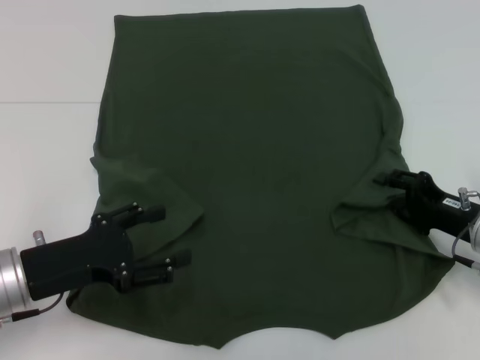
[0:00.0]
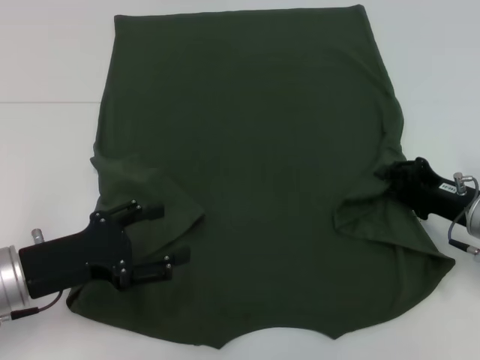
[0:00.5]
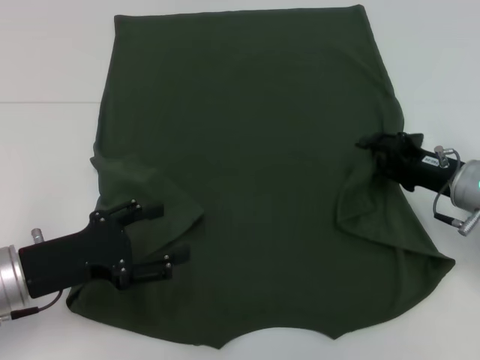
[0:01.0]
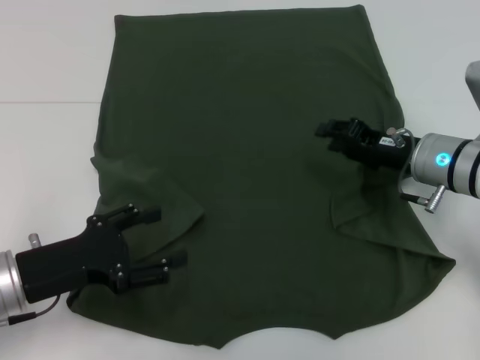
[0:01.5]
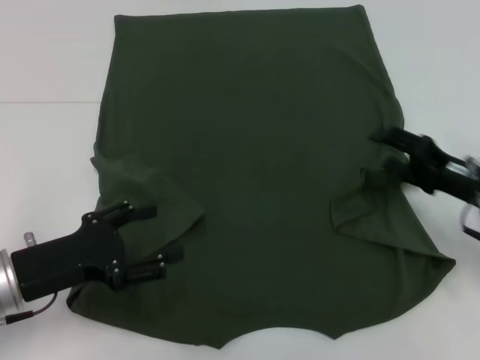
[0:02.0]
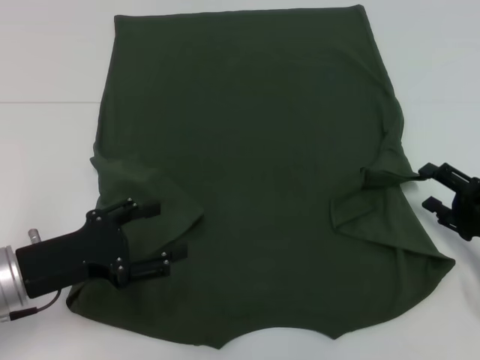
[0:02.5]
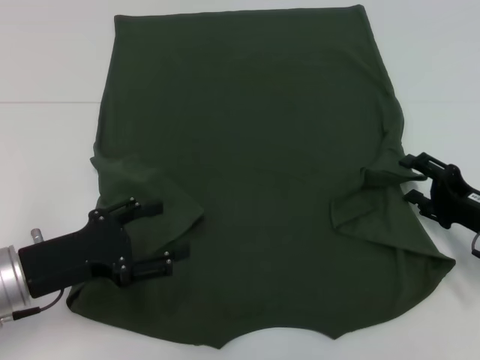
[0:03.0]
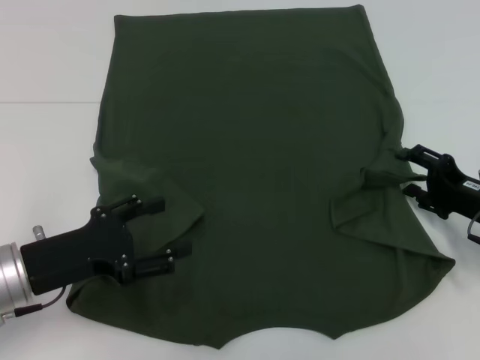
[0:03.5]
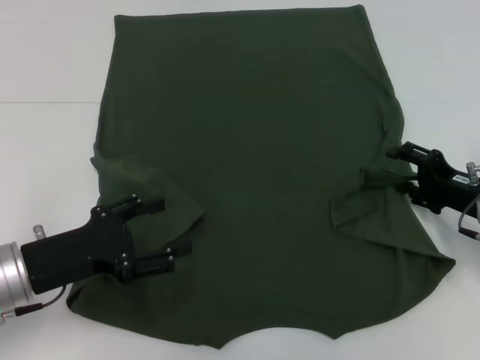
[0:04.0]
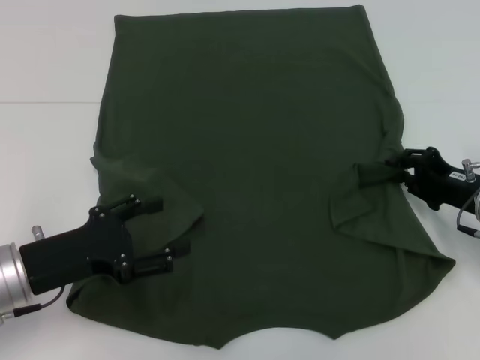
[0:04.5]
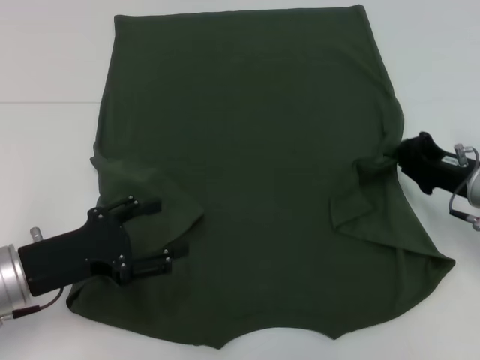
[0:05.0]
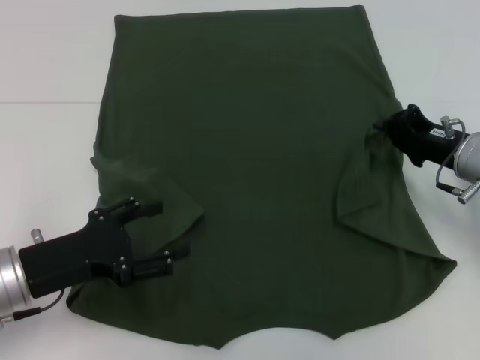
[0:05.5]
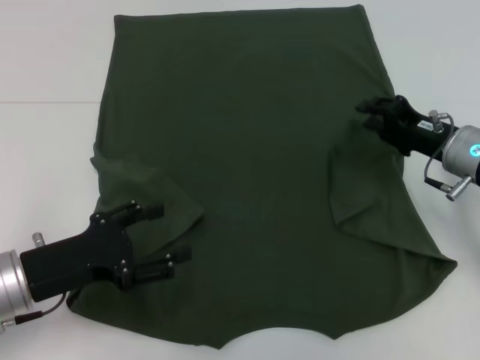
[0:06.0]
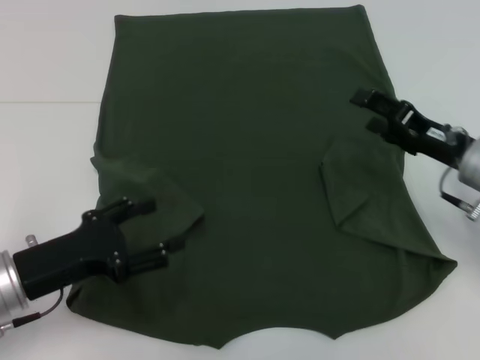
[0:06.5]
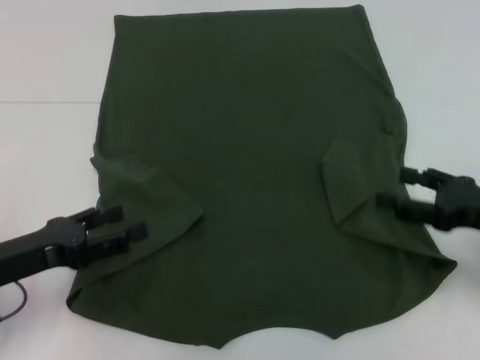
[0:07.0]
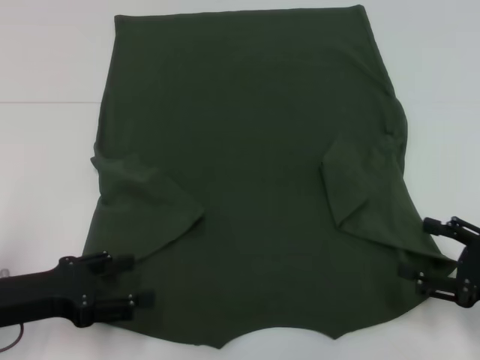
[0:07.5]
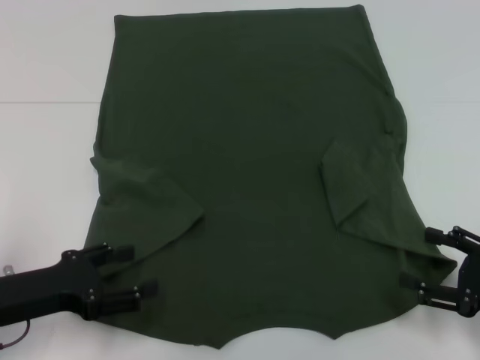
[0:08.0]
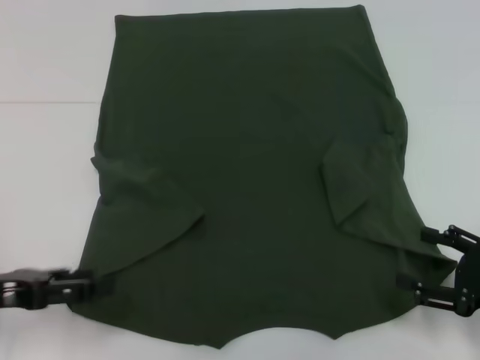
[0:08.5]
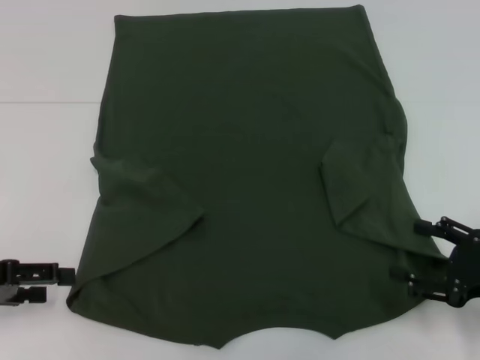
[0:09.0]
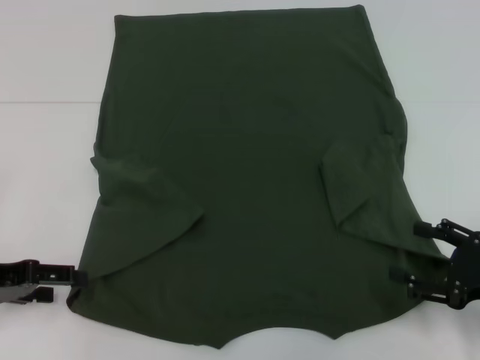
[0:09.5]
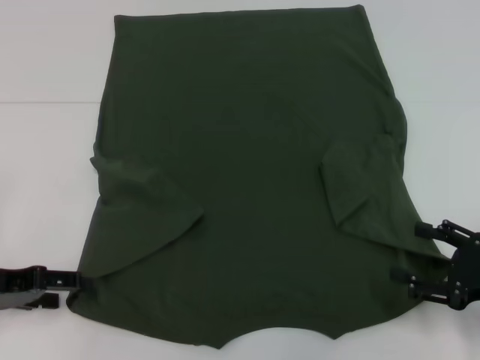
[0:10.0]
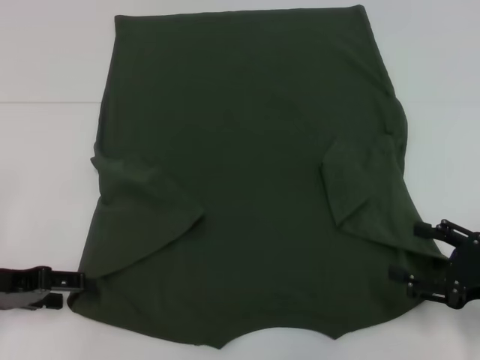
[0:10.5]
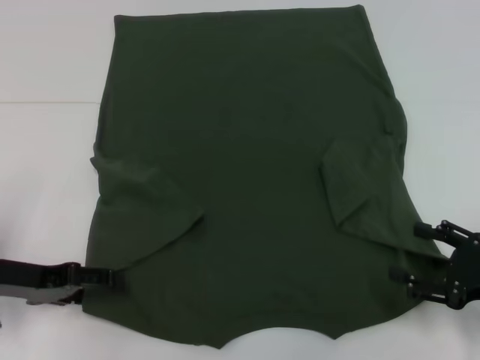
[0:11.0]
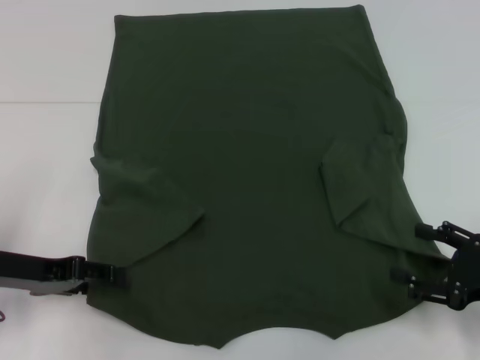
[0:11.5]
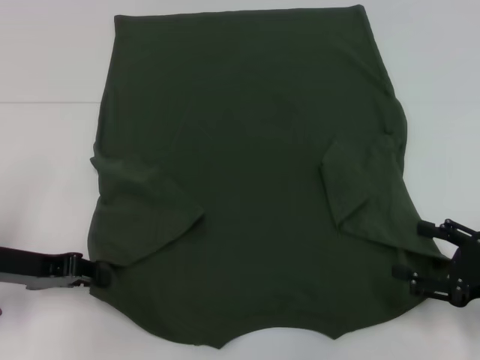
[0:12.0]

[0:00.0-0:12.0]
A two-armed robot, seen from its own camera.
Step, 0.0 to 6.5 s: Fold the bottom right sleeve with your right hand.
0.0 to 2.0 s: The right gripper closes and opens again.
4.0 to 6.0 s: The right gripper moves about 5 cm, and closes its fingers.
6.0 to 8.0 s: The right gripper is displaced backward and to the right by approximately 20 cm, and opens.
8.0 to 10.0 s: The left gripper ends up approximately 5 cm from where it was.
10.0 to 12.0 s: The left gripper closes.

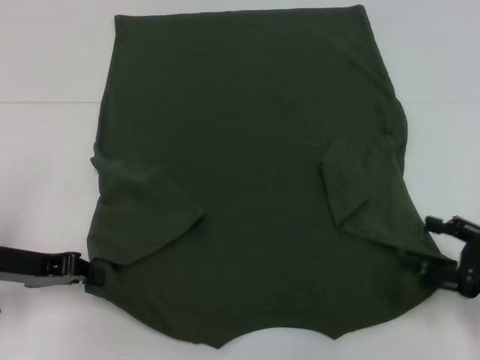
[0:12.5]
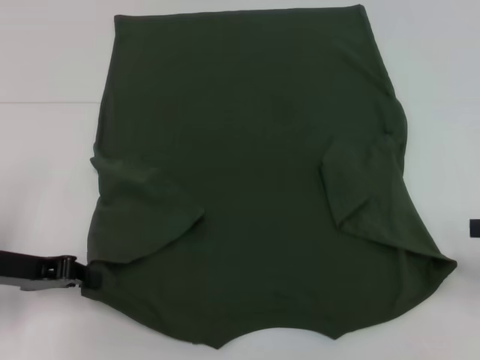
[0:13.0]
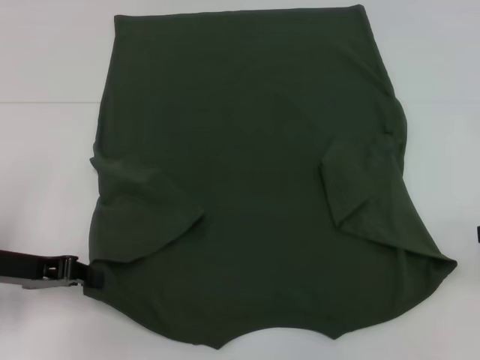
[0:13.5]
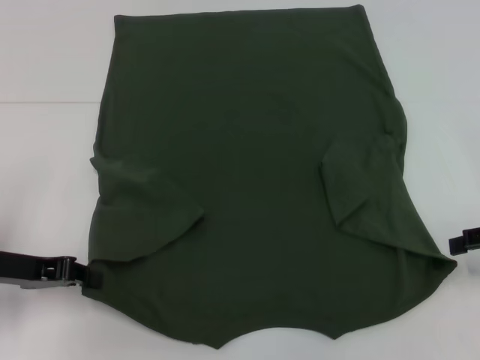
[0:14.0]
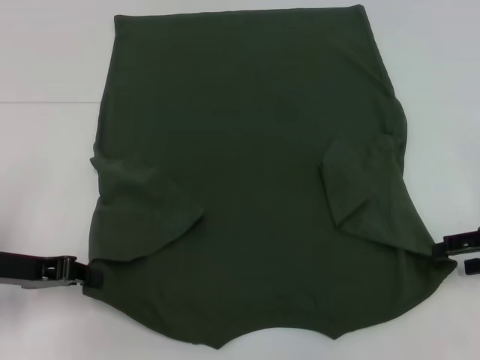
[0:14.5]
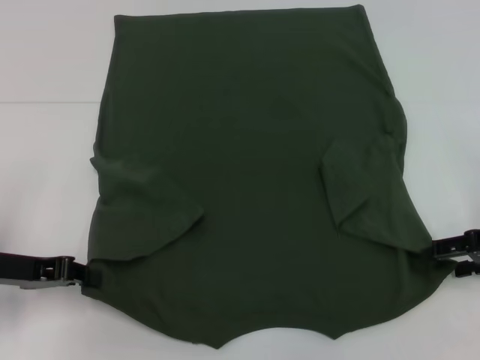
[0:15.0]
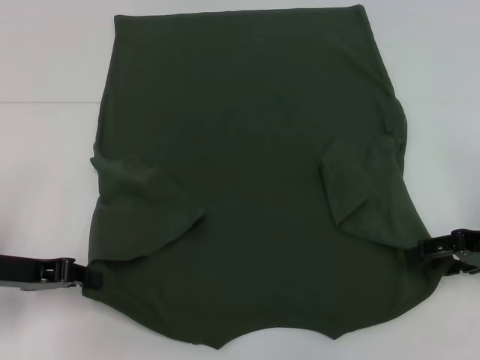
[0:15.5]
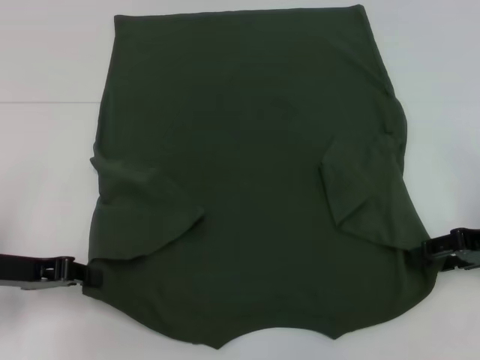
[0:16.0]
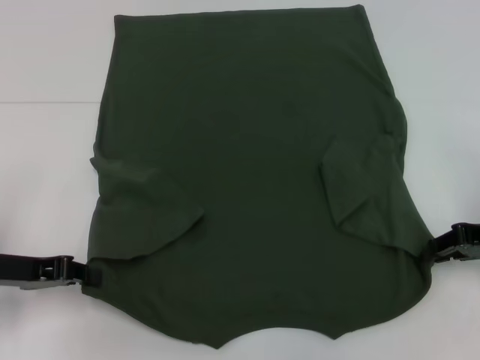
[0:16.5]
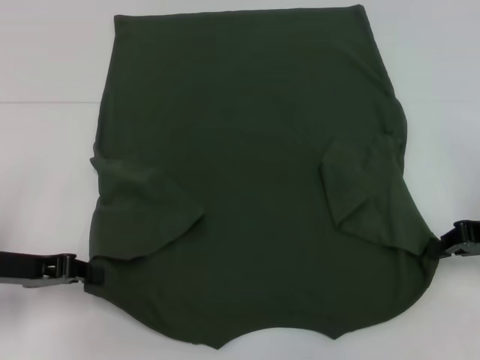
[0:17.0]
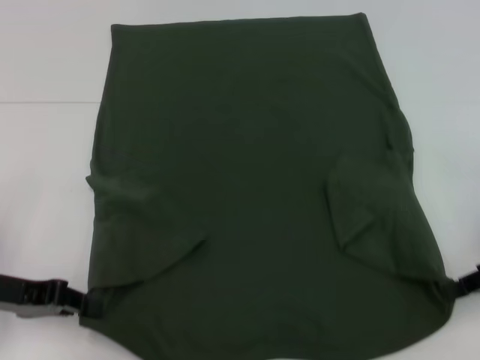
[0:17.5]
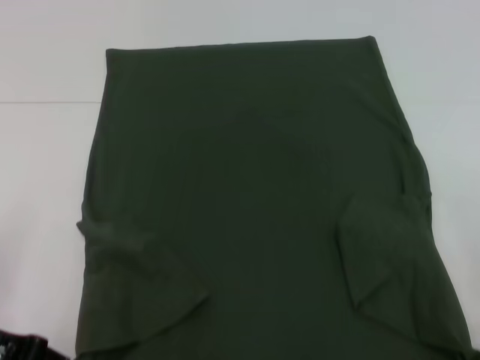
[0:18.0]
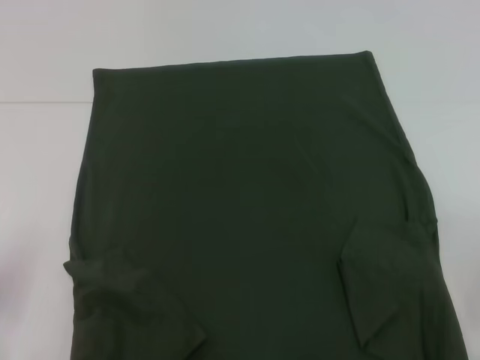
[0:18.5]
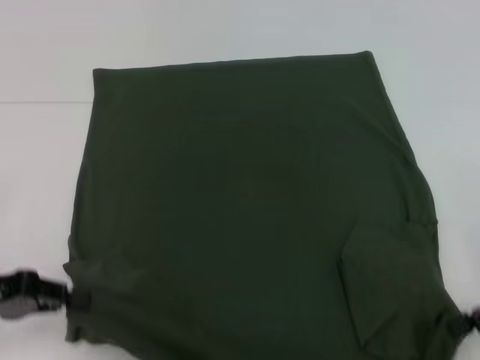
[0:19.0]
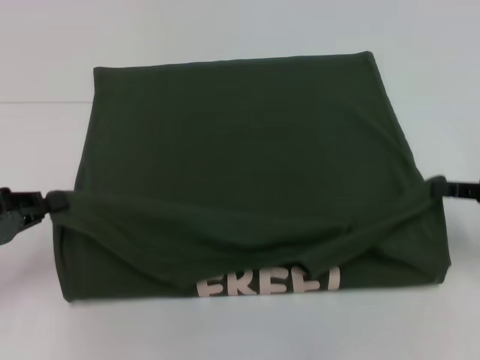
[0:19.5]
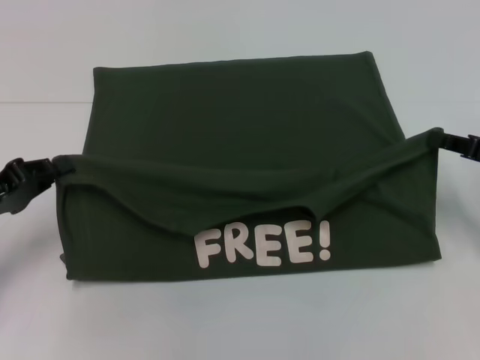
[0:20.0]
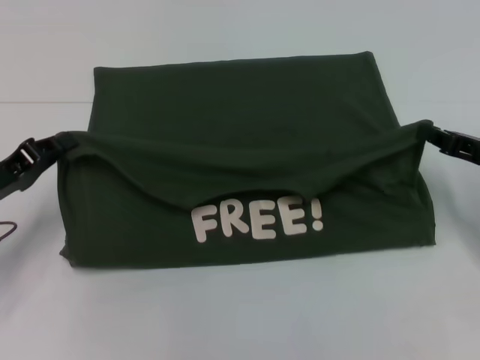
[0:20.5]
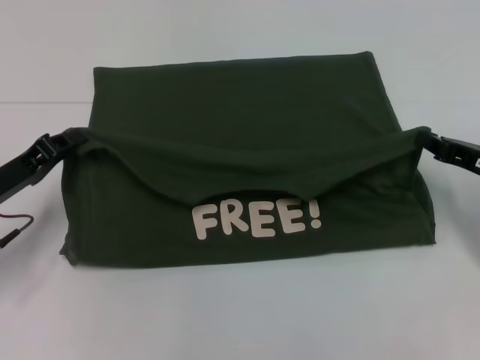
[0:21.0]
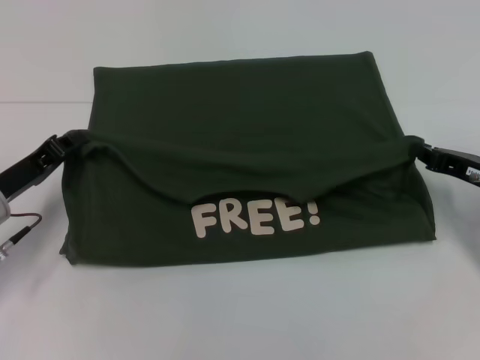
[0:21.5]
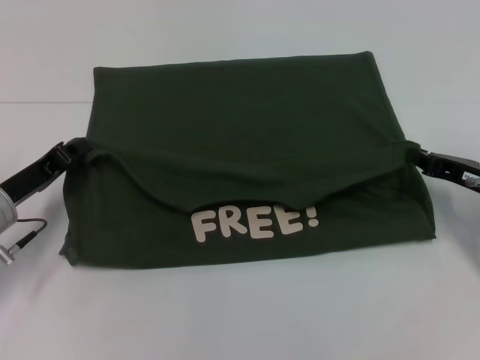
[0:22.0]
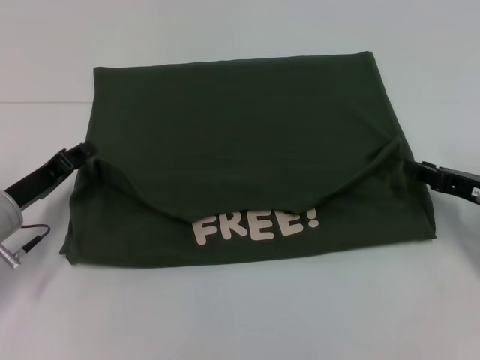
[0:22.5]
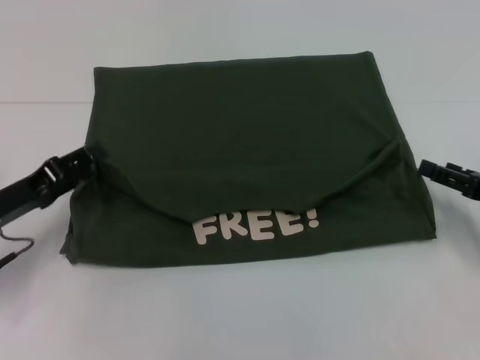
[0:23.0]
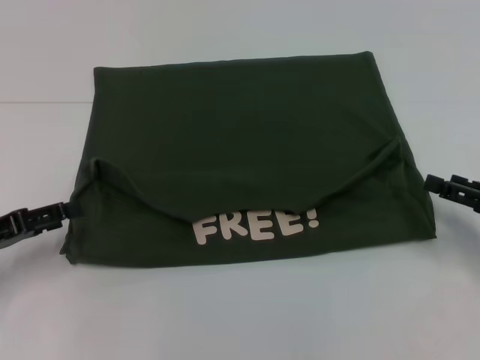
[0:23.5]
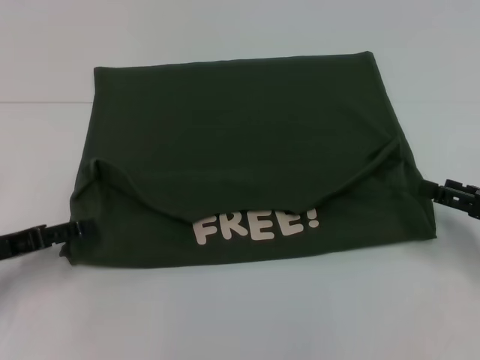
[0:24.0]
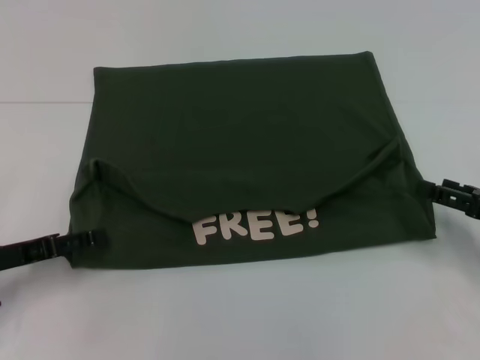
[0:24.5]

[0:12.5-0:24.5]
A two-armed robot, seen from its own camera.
Step, 12.5 to 16.5 s: Grab the bottom right corner with your right hand.
Step, 17.0 to 22.5 s: Fold the clothes with your left hand.
Step, 17.0 to 22.5 s: Fold the clothes with your right hand.
12.5 to 14.5 s: The right gripper goes about 10 cm forward and upward.
14.5 to 16.5 s: The right gripper closes up.
16.5 to 18.5 s: Both grippers move backward, approximately 5 cm. The right gripper closes its fingers.
18.5 to 20.5 s: Both grippers travel together forward, some 10 cm.
20.5 to 22.5 s: The grippers stay close to where they were, moving slightly.
22.5 to 24.5 s: The right gripper shifts by about 5 cm, and opens. The left gripper shifts by about 5 cm, and opens.

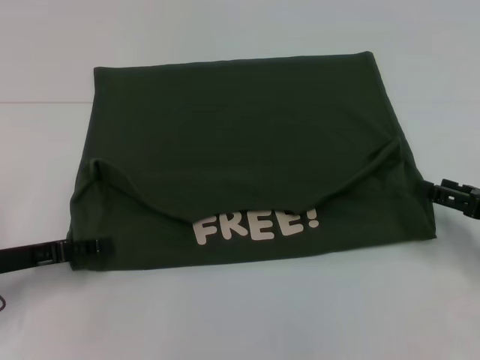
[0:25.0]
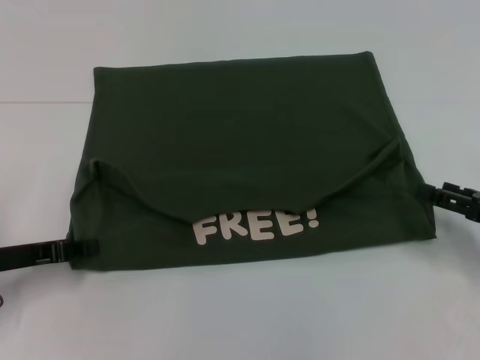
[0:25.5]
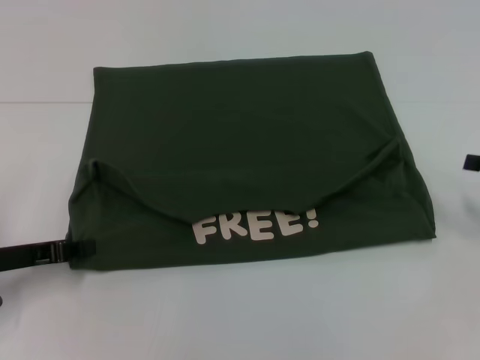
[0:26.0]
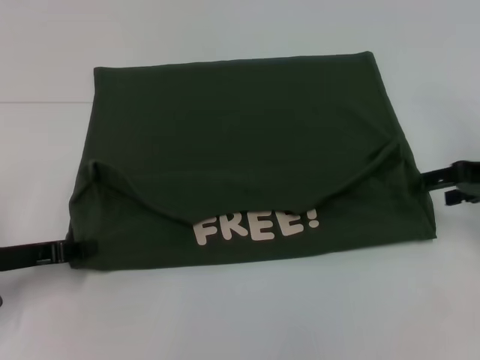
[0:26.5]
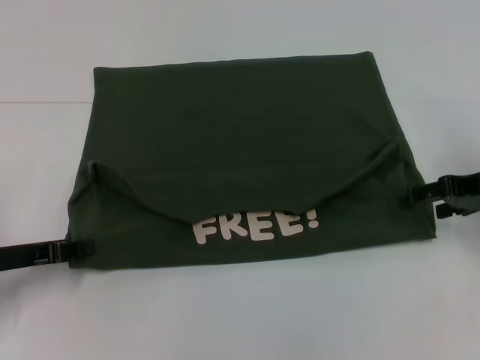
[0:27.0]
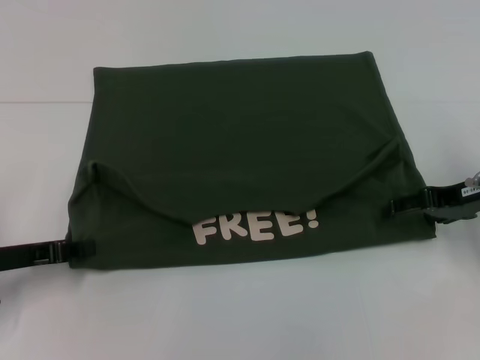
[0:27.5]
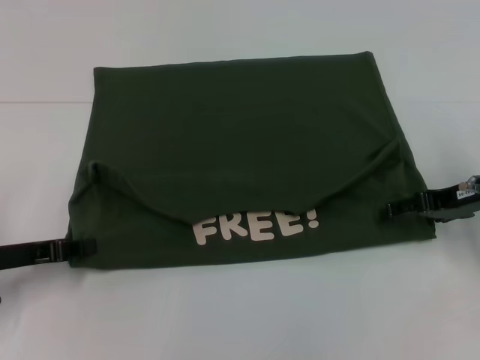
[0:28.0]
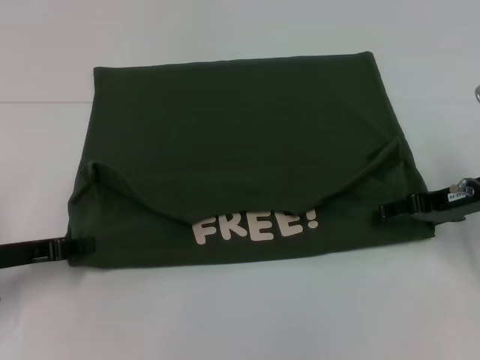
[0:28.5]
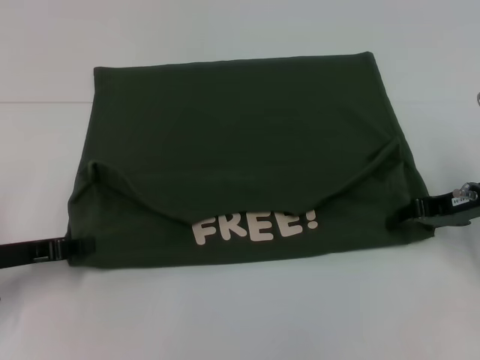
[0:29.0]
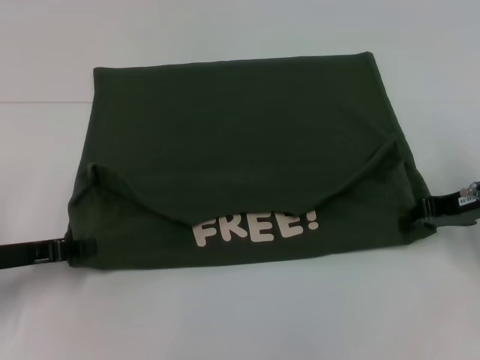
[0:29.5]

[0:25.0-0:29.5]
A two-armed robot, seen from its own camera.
25.0 to 27.0 s: The right gripper shifts roughly 10 cm forward and upward.
27.0 to 29.5 s: The right gripper closes up.
